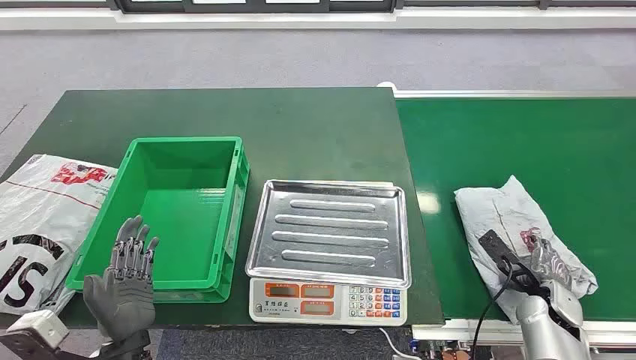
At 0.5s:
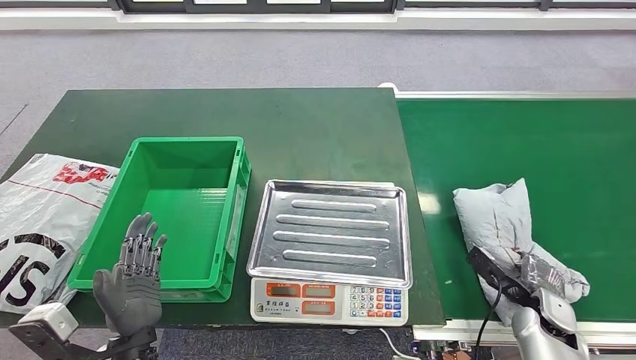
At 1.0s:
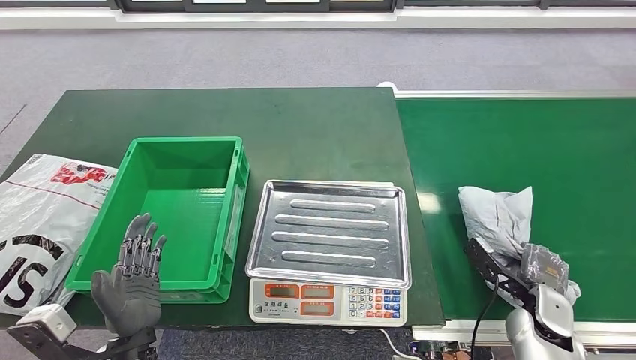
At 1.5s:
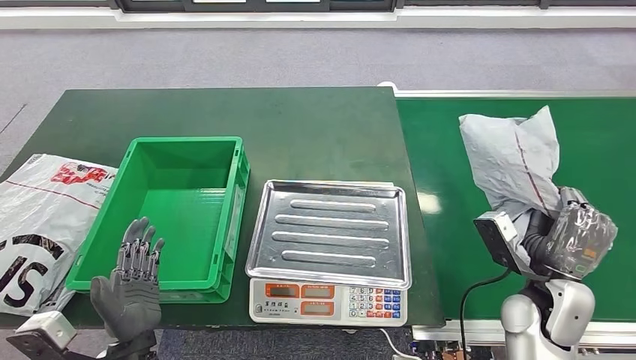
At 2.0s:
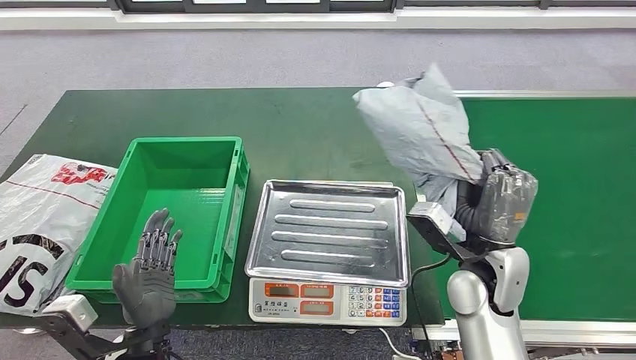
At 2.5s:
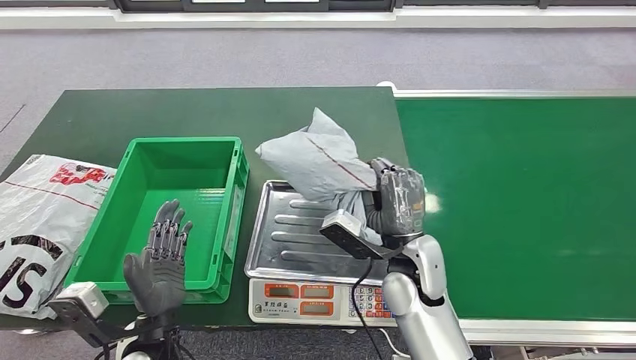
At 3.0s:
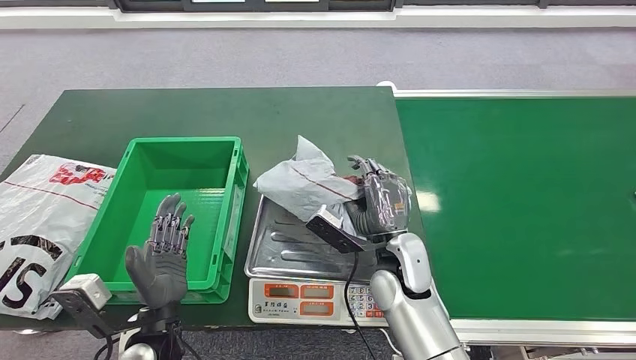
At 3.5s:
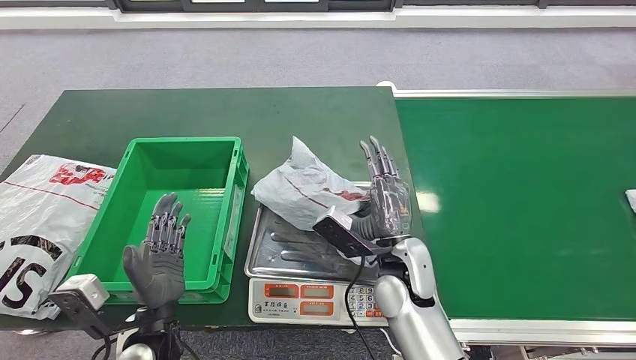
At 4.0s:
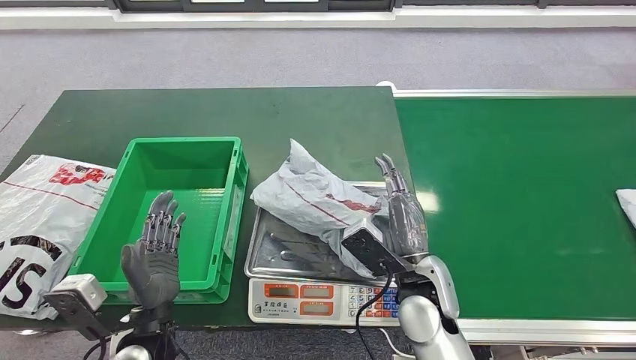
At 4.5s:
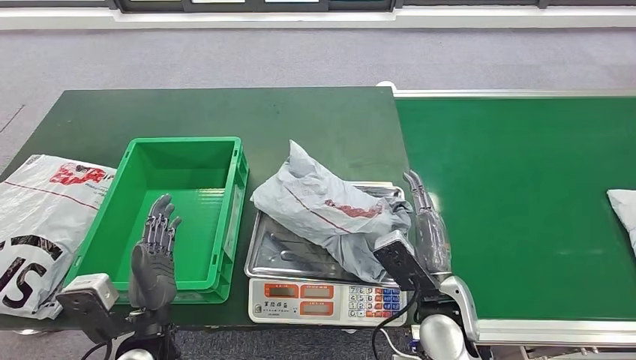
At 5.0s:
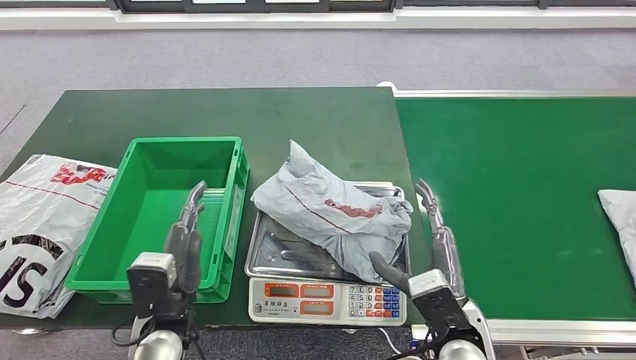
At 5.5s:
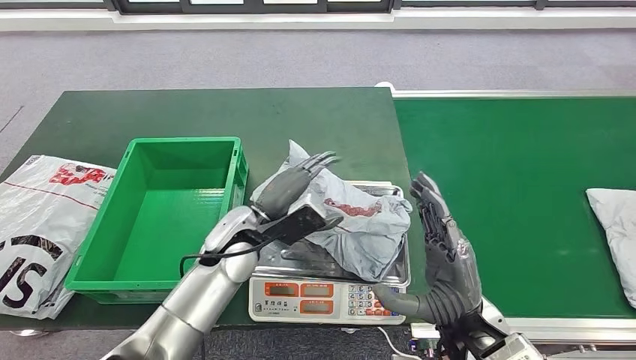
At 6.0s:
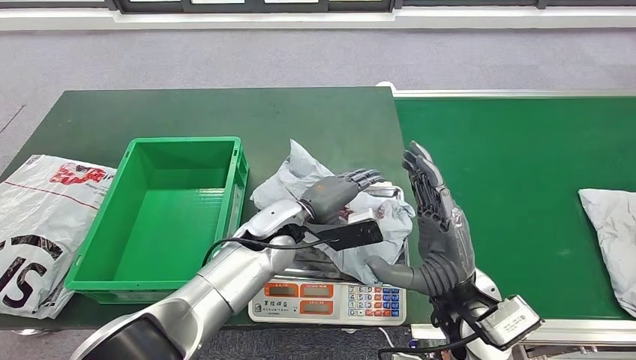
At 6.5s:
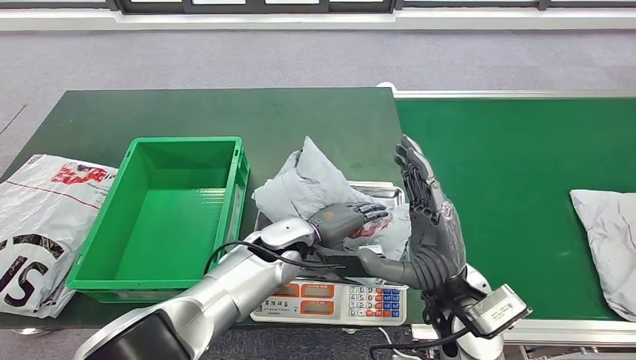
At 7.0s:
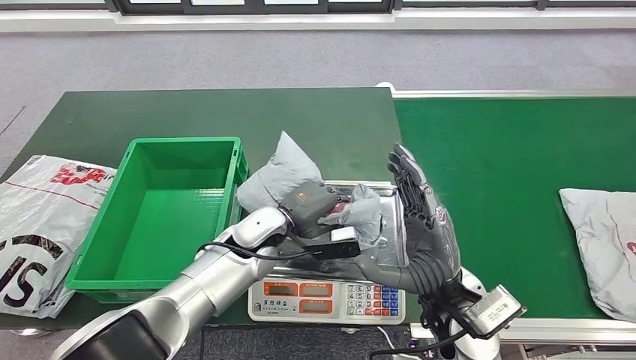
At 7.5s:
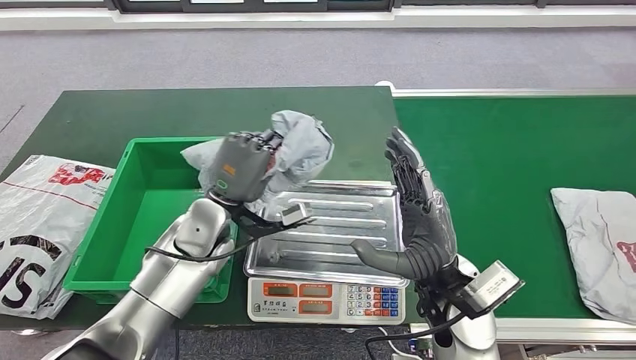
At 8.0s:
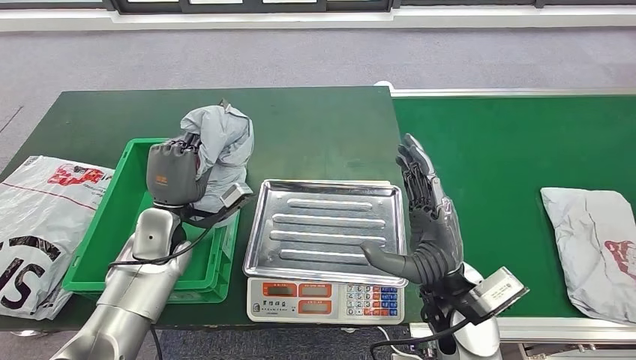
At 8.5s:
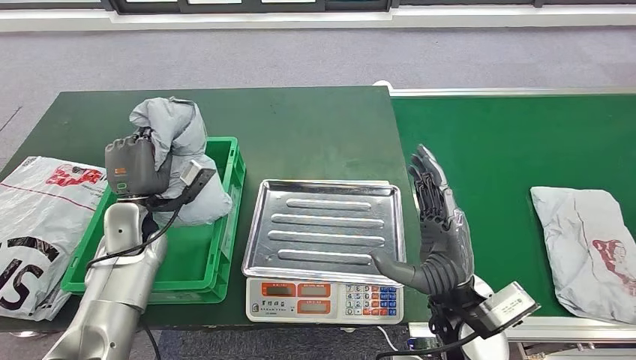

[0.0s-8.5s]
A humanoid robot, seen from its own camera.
Step, 0.0s to 1.5s: Pick up the package from the conveyor belt.
Step, 2.0s to 4.5s: Place the package onto the inbound machine.
Step, 5.0s to 7.5s: Pick up the package from the inbound machine.
Step, 8.0s to 8.5s: Place the package into the parcel locker.
